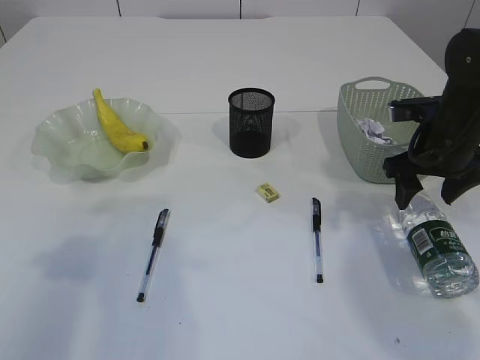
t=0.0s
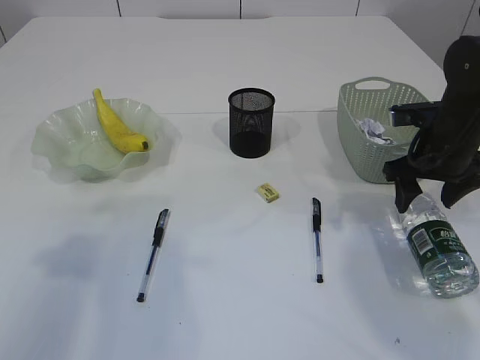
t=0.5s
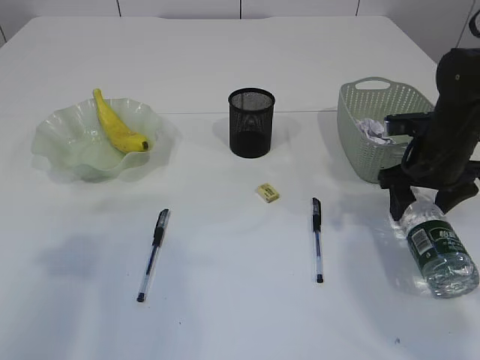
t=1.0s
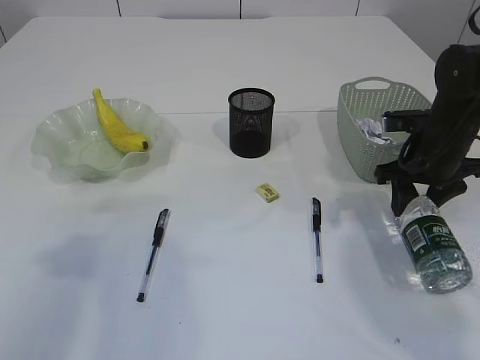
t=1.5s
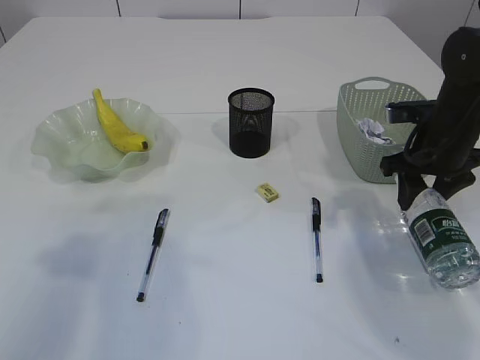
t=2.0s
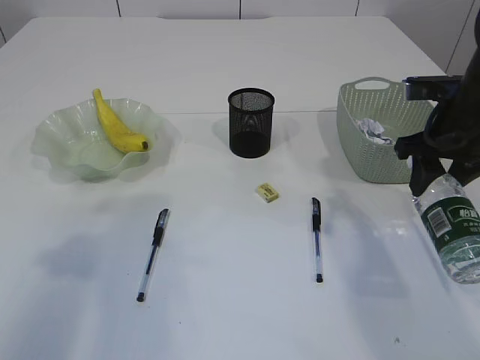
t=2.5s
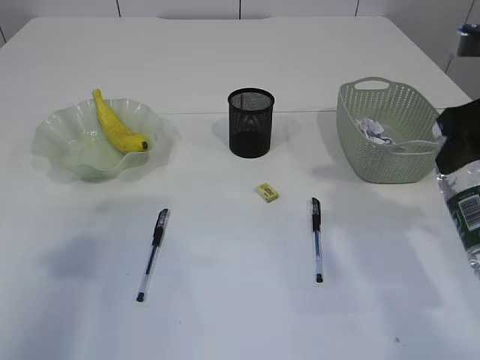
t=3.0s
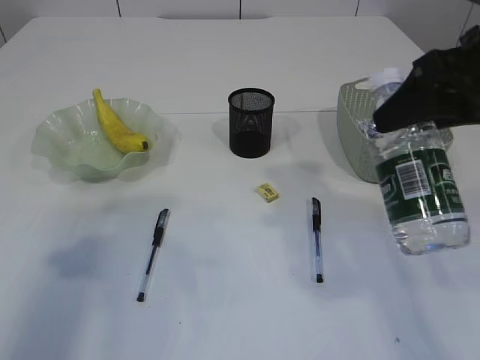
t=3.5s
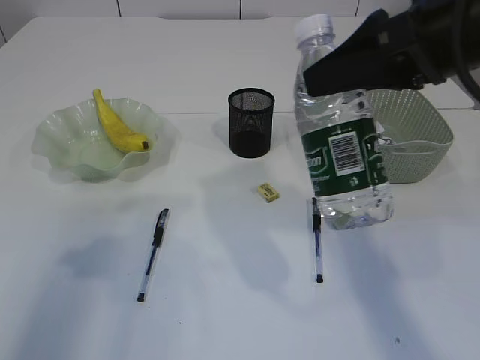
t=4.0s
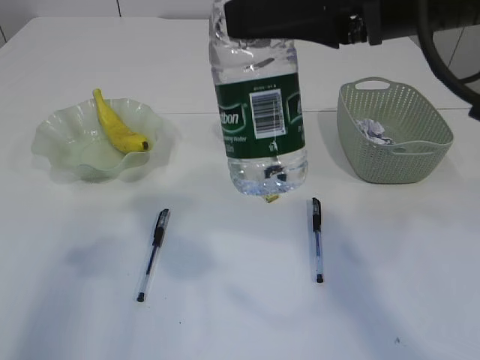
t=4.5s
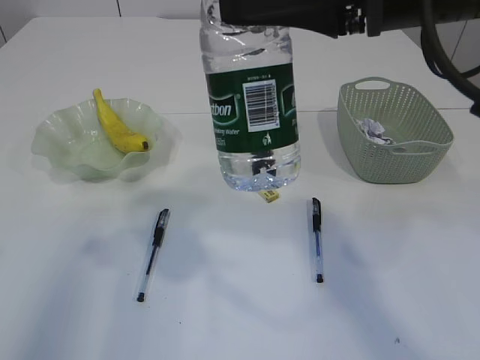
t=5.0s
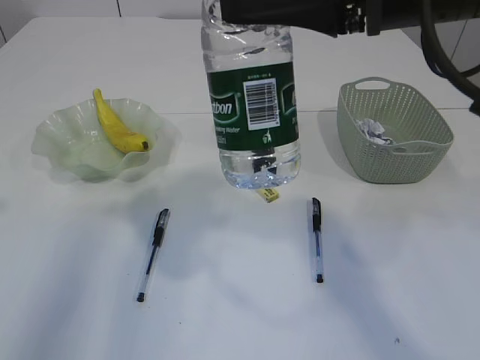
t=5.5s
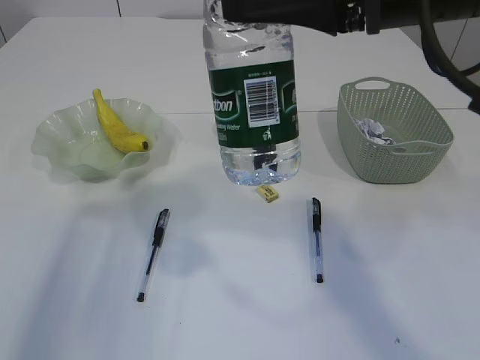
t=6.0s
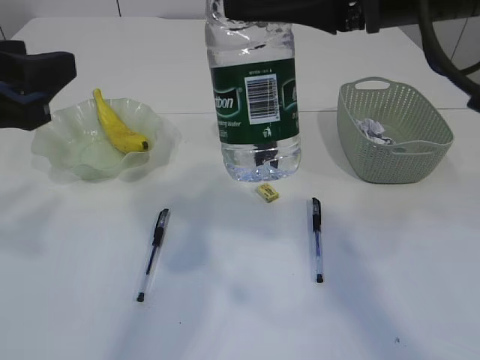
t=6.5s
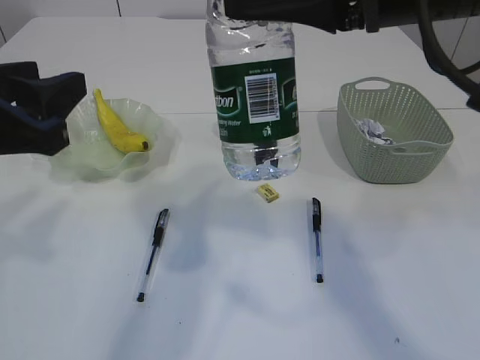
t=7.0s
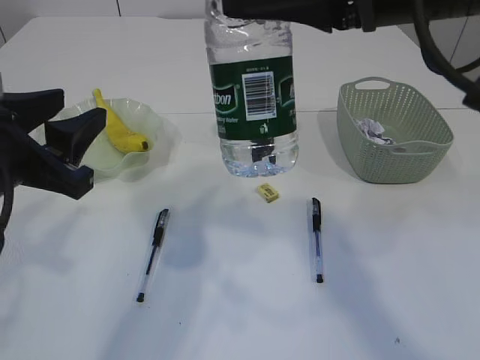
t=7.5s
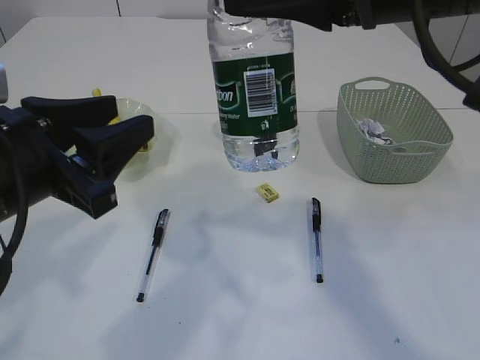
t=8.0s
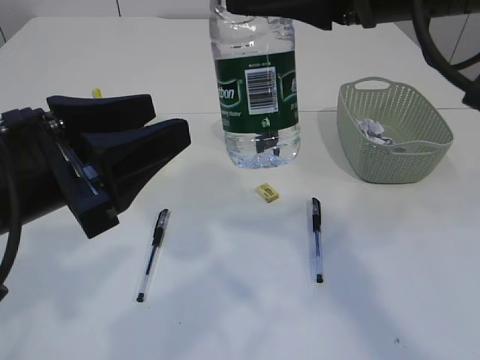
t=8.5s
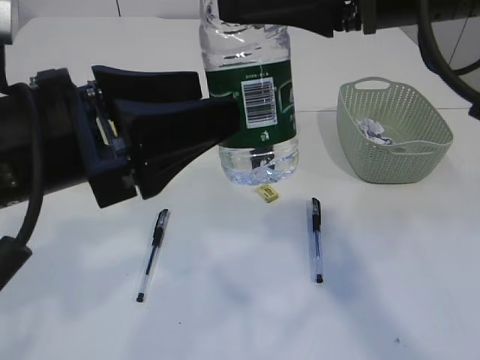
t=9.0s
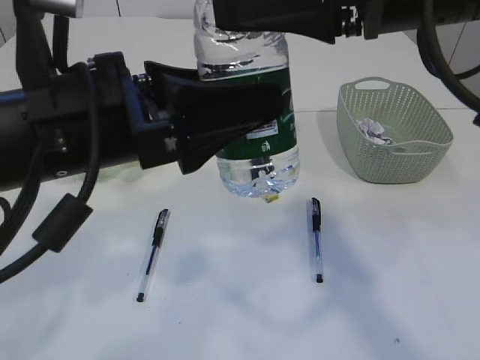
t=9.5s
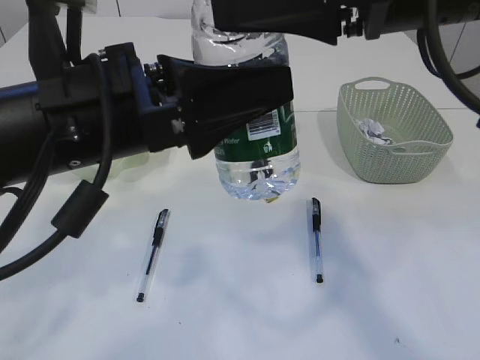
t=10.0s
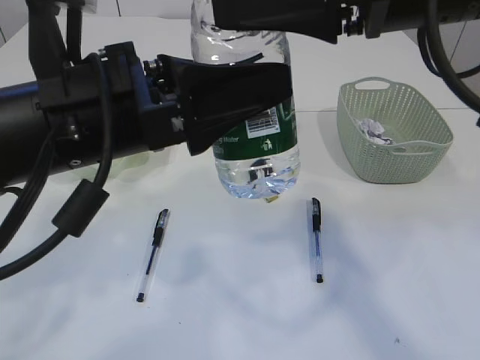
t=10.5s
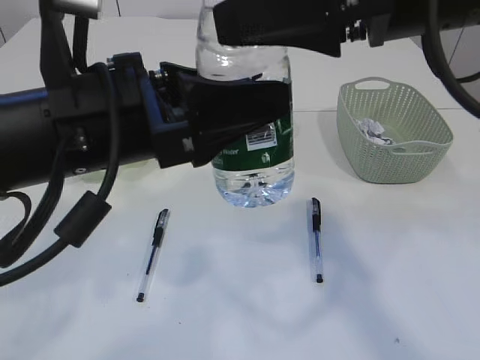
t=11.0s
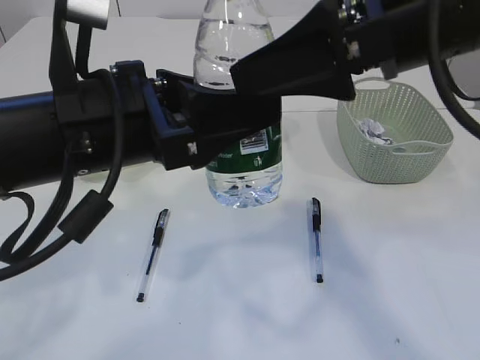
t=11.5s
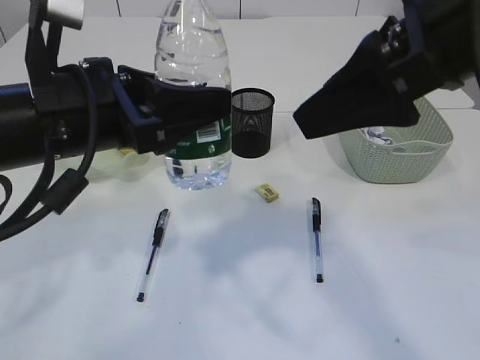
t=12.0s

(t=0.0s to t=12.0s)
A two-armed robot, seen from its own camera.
Step, t=0.0s - t=2.5s: Pick up the bottle with the right arm.
Step, t=3.0s - t=11.5s: transfer the bottle to the left arm.
t=0.0s - t=2.0s: The grippers move only a little.
t=2.0s - t=4.0s: The right gripper heads upward, backward and to the left, covering roughly 25 cm.
t=4.0s - t=6.0s: The right gripper moves roughly 5 cm.
t=6.0s - t=8.0s: The left gripper is displaced to the right by approximately 10 cm.
t=8.0s - t=10.0s: The left gripper goes approximately 5 cm to the right.
t=10.0s - t=12.0s: The right gripper opens its fingers.

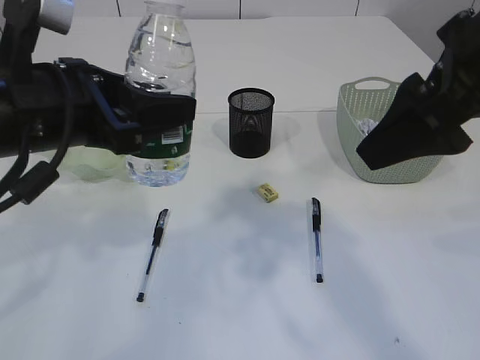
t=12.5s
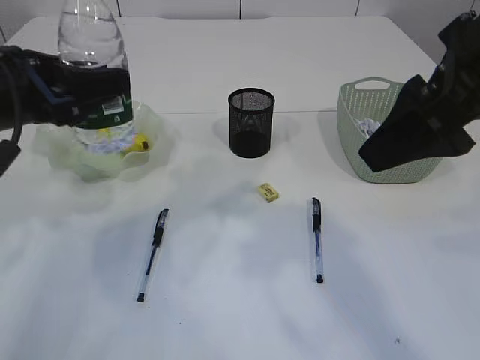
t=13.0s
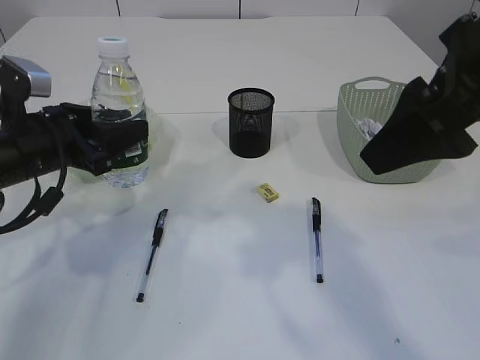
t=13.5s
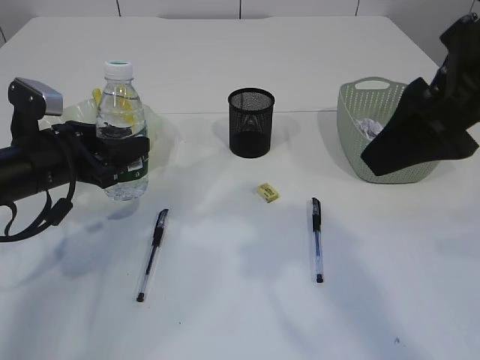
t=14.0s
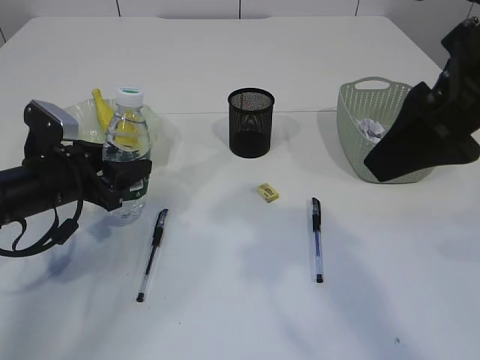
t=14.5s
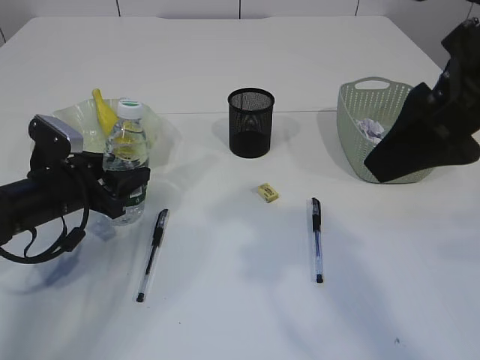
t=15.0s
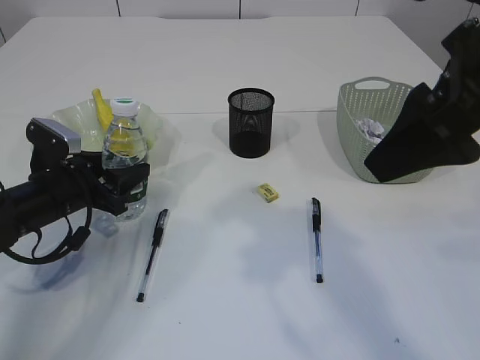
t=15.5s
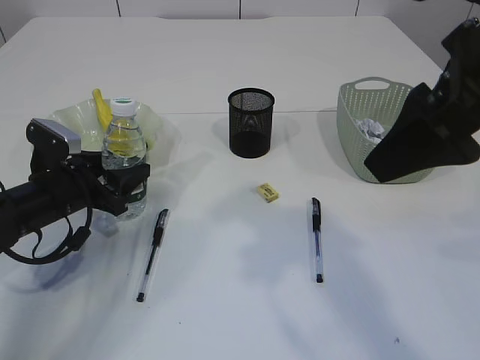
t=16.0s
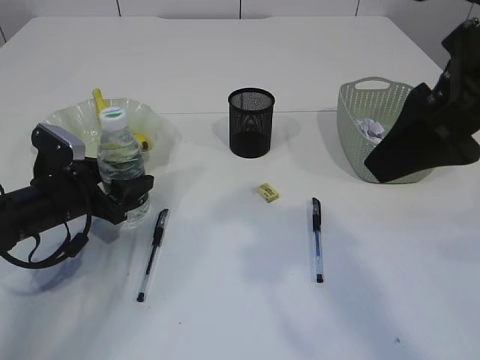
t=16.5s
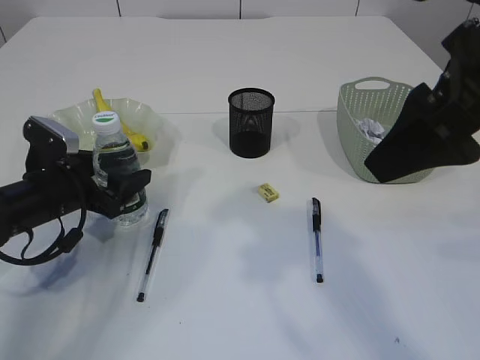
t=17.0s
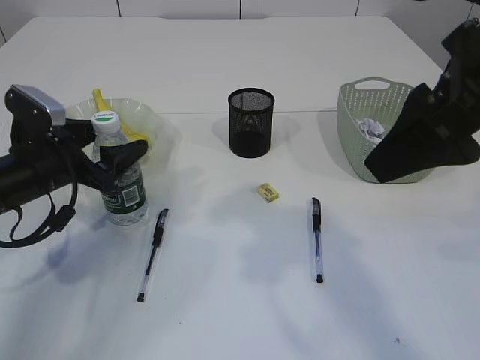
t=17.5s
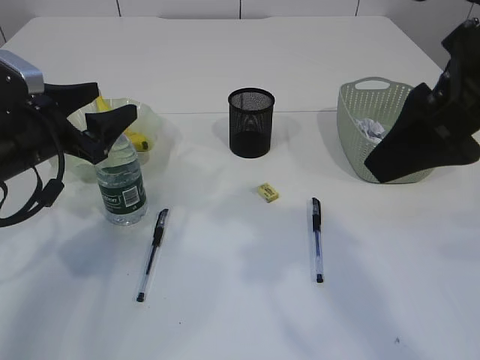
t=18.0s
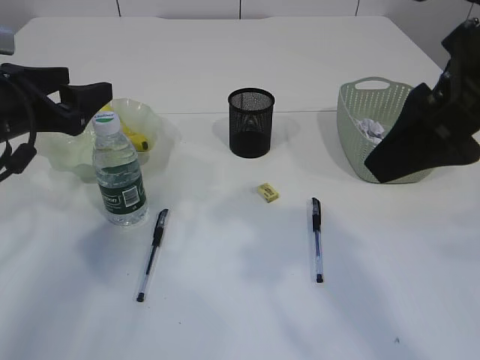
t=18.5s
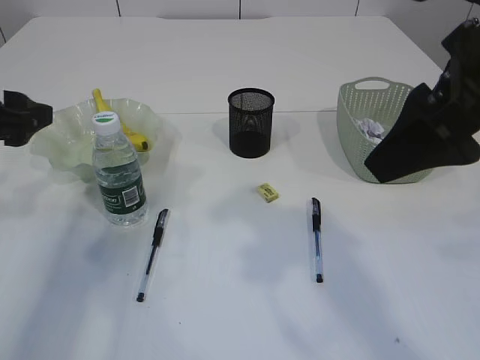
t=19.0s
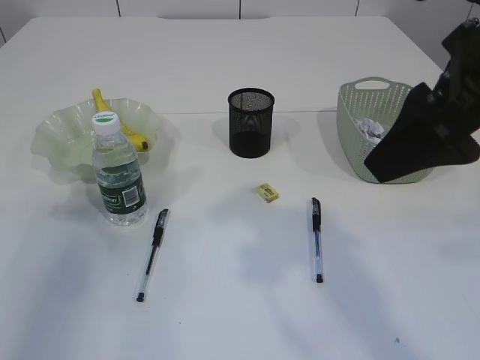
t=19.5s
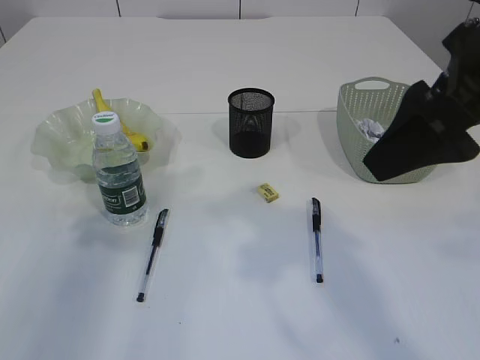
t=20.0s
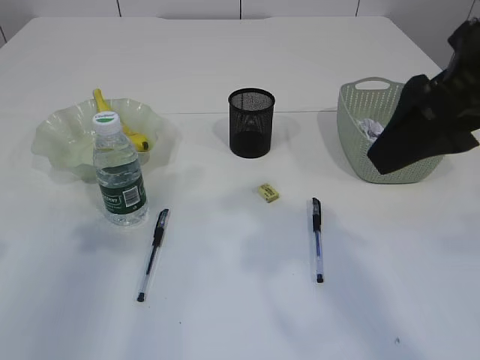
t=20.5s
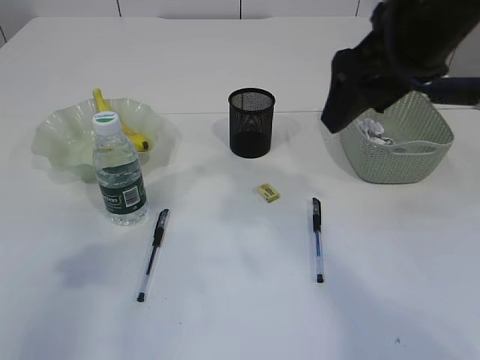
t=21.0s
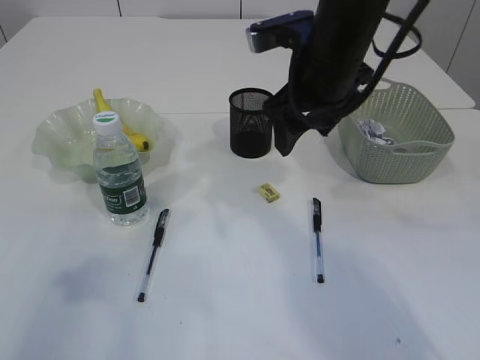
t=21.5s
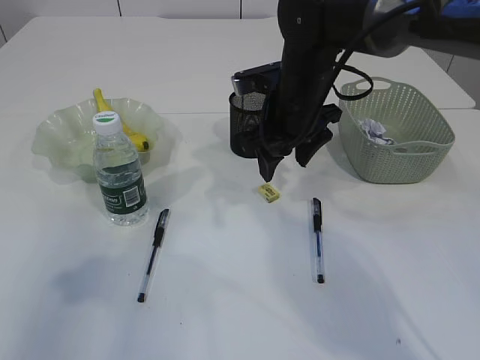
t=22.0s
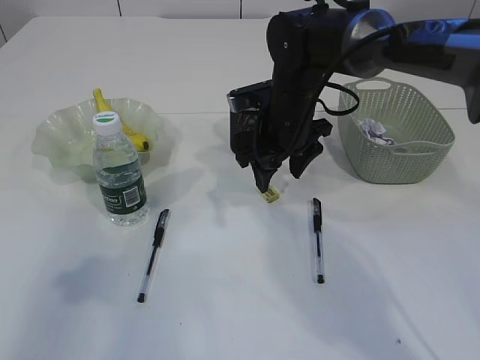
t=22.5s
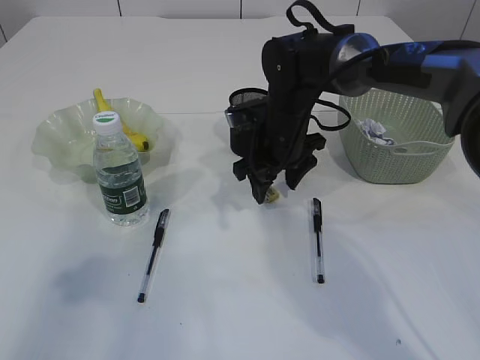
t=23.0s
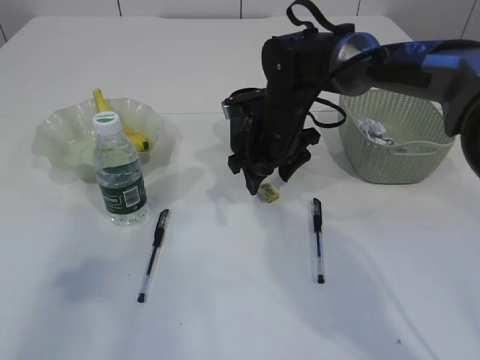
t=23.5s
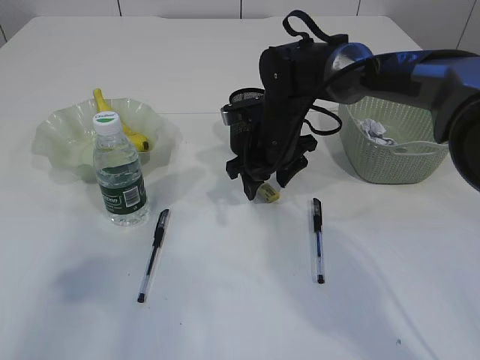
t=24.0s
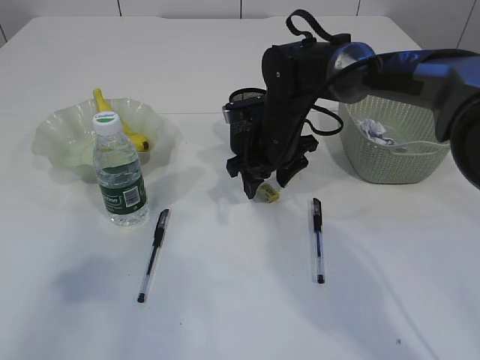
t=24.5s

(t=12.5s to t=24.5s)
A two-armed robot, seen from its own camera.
Step, t=12.5s - t=18.0s: Place the bottle.
t=12.5s - t=14.5s: The left gripper heads downward, forward and to the left, covering roughly 20 cm.
t=14.5s - t=16.5s: There are only small adjustments of the grippers.
t=16.5s - t=18.5s: The left gripper travels upward by about 15 cm.
t=18.5s - t=20.5s: The left gripper goes roughly 10 cm upward and backward.
t=20.5s - t=22.5s: The left gripper goes approximately 10 cm backward; the right gripper shifts roughly 30 cm forward, downward and to the left.
t=22.5s - t=24.5s: The grippers move only a little.

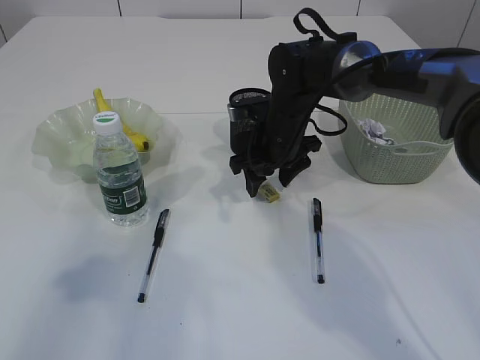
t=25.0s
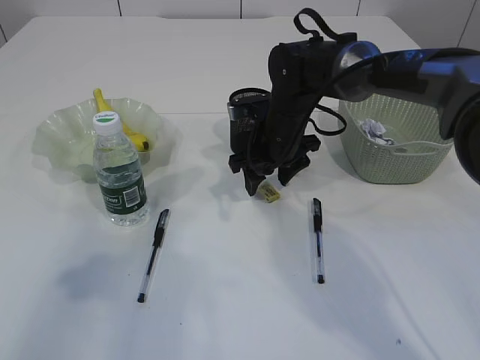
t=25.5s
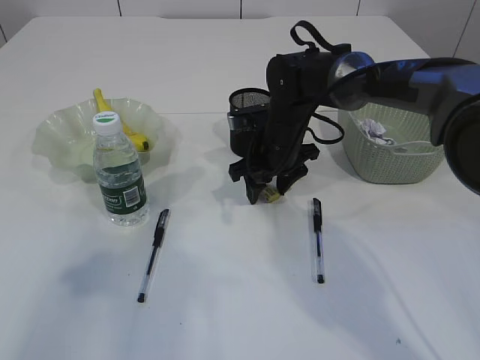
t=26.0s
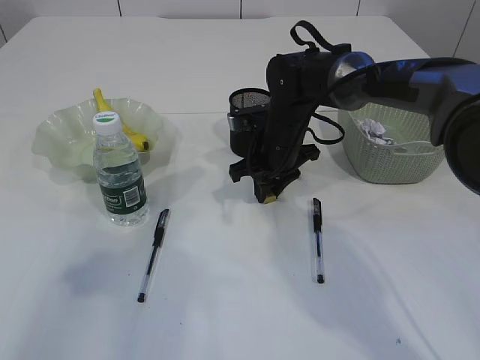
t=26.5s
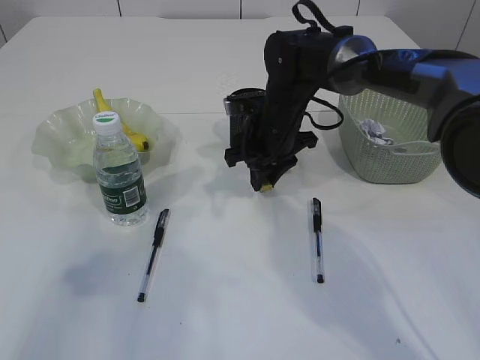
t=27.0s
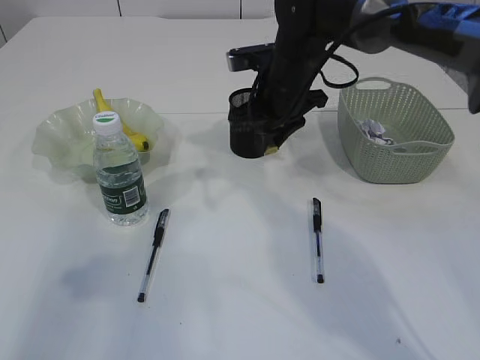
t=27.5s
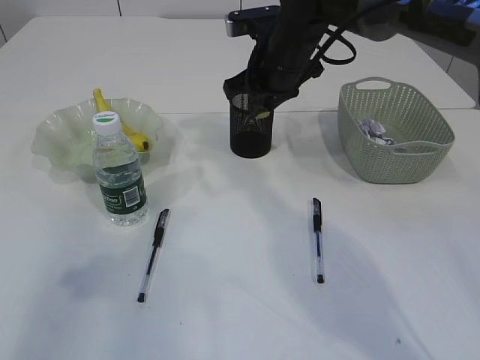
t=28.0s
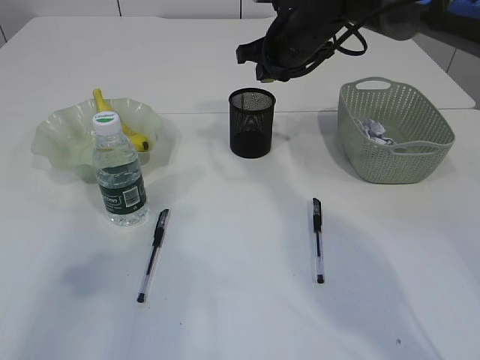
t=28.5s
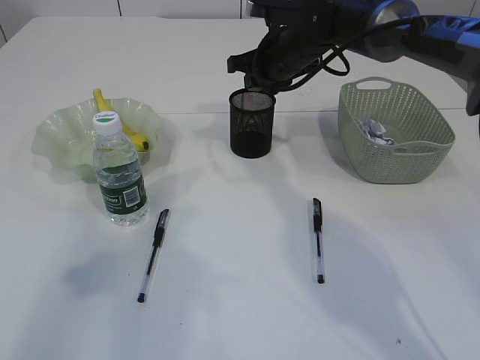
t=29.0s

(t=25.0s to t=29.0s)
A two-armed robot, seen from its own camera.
Step, t=25.0s - t=27.0s: Pick up the eraser.
t=25.0s - t=27.0s: The right gripper closes up.
t=27.0s - t=29.0s: The right gripper heads upward and forward, covering roughly 10 cm.
